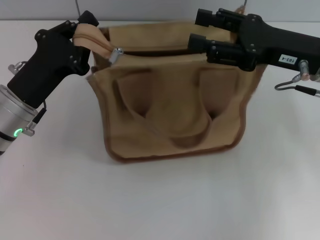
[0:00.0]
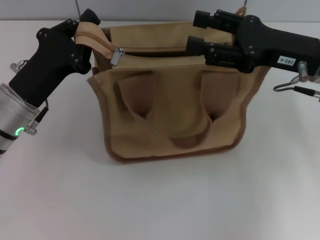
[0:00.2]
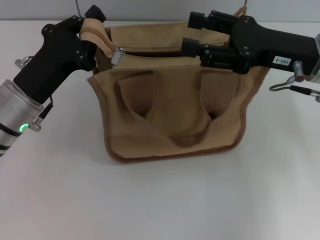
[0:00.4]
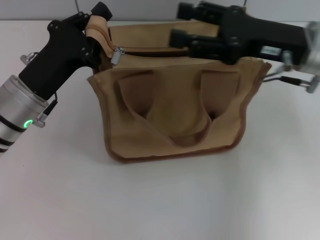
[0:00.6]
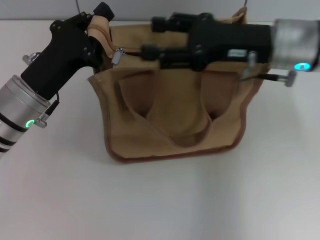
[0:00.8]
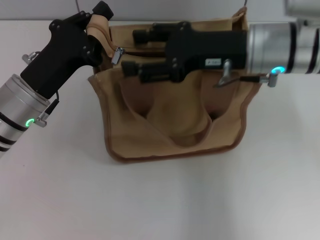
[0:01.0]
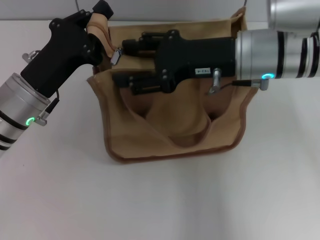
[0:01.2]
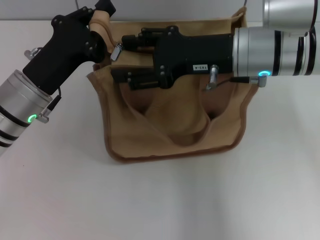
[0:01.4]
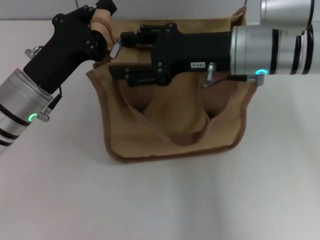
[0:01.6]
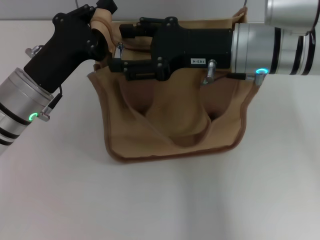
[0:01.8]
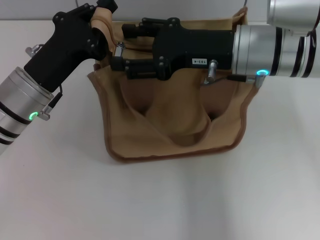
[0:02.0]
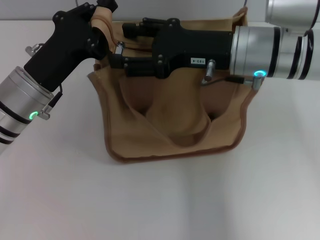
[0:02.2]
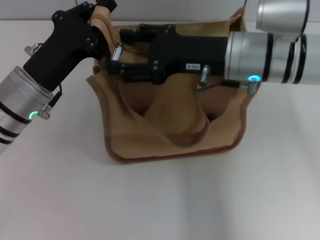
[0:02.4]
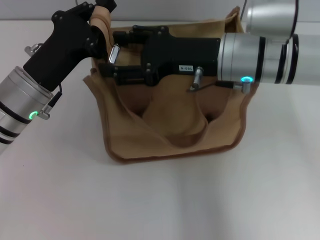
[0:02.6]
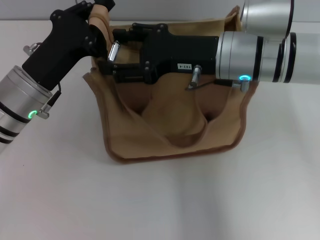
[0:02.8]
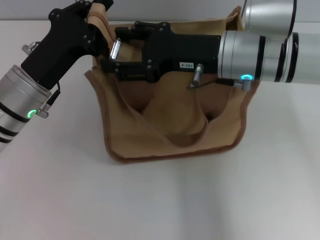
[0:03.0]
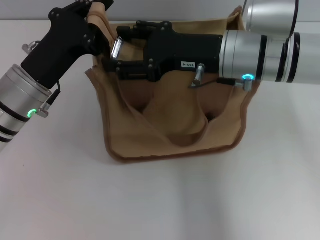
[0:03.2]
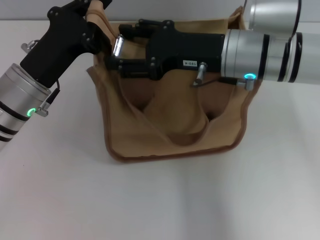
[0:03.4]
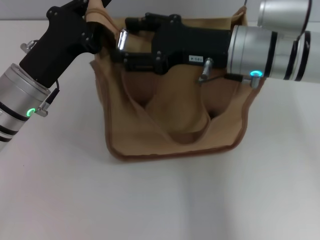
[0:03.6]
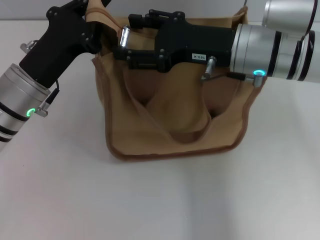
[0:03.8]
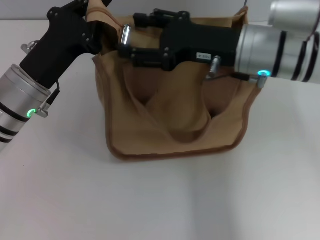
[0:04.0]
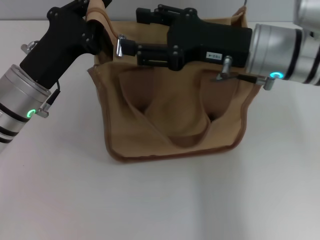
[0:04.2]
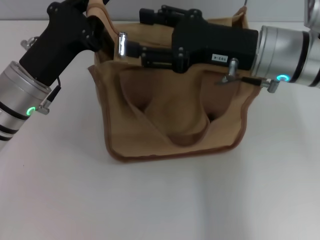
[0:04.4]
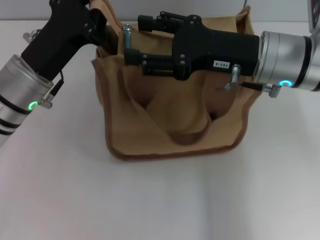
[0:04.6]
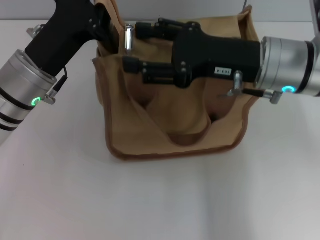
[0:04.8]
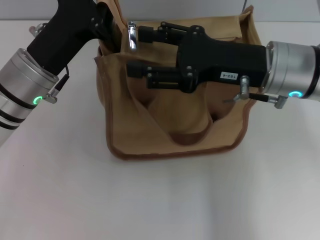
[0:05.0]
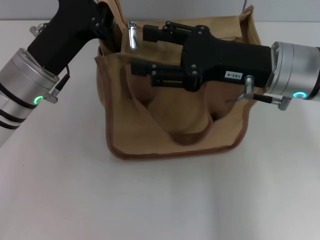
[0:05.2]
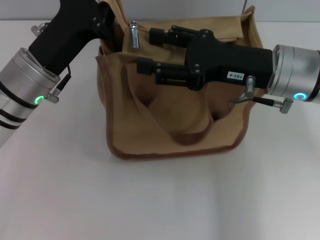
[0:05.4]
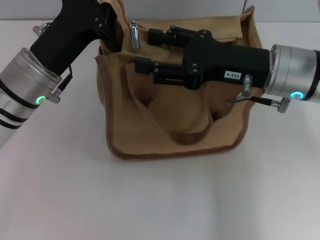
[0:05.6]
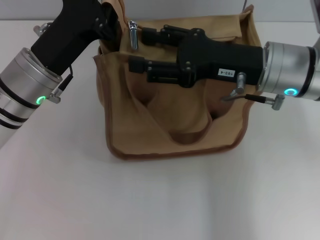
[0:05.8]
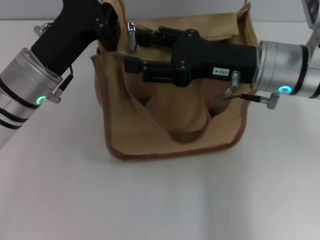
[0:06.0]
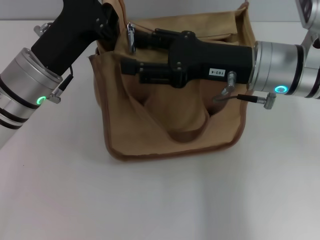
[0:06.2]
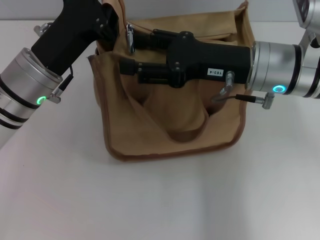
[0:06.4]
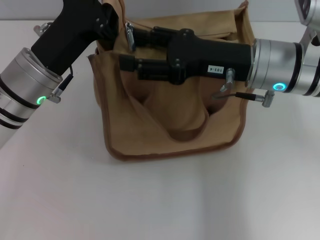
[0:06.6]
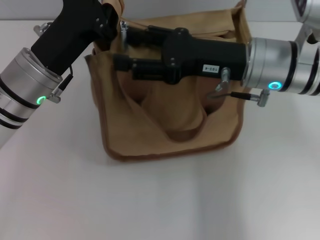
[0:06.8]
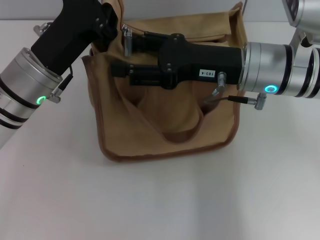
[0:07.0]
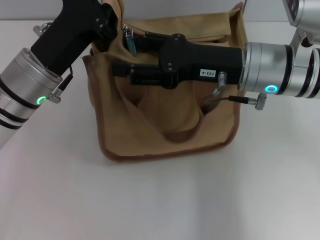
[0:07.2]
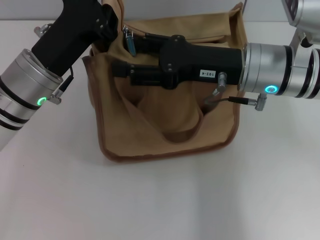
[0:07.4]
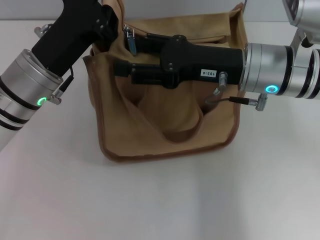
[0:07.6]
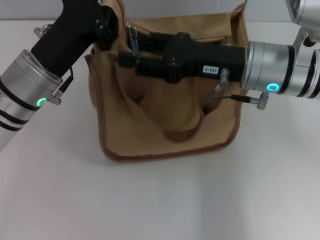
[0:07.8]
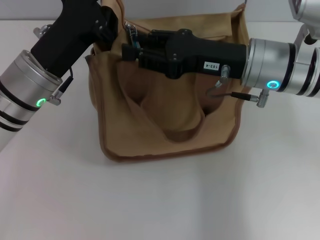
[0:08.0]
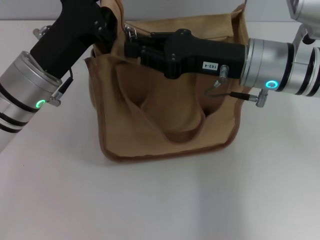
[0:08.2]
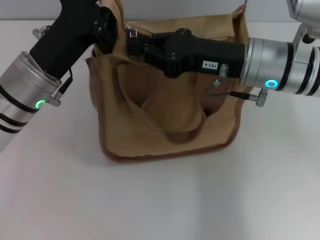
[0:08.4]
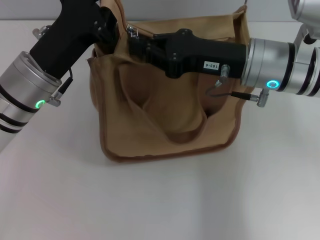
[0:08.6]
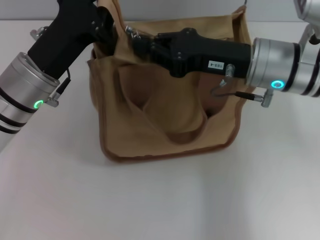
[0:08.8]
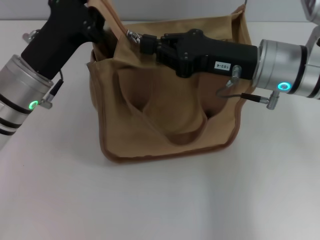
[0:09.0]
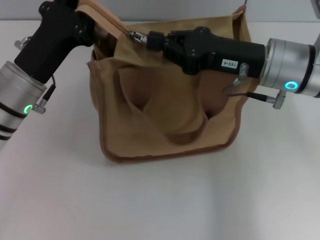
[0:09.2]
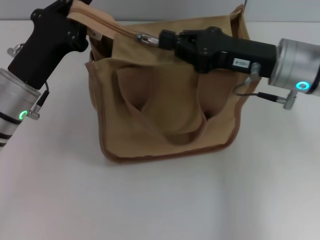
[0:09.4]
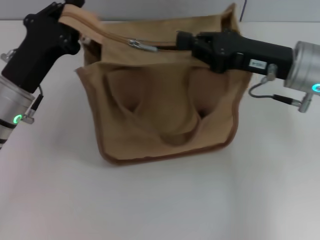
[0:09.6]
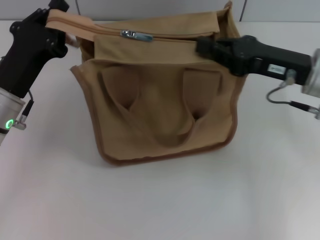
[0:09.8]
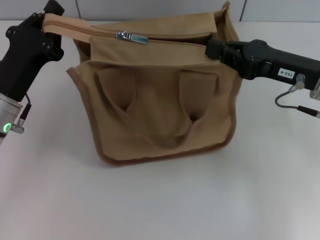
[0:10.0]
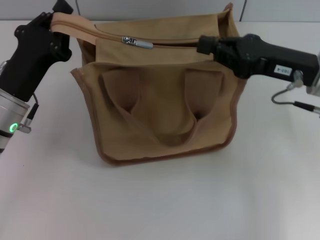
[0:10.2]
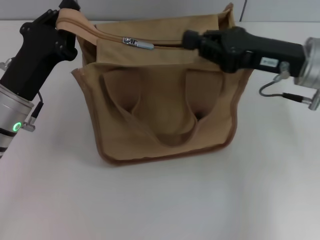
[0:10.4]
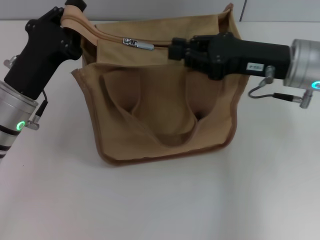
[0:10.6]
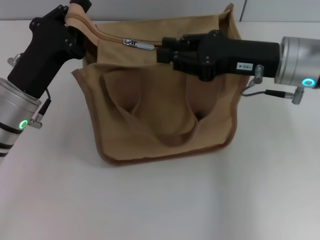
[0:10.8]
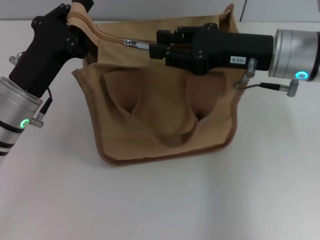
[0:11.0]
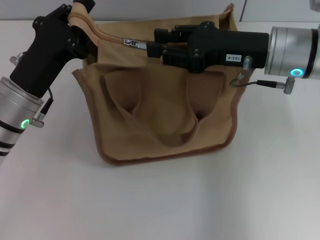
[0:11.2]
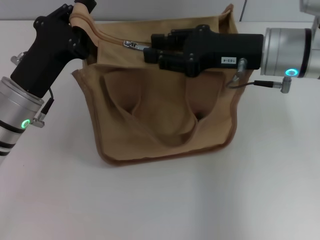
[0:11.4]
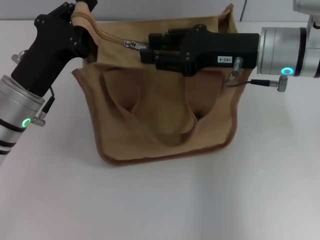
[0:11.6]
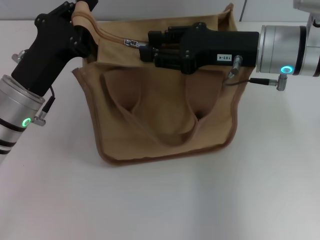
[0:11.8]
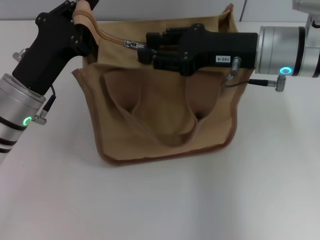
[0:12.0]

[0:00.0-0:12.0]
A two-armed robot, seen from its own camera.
0:00.0 to 0:01.6: The right gripper heads to the left, covering some 10 cm.
0:01.6 to 0:07.6: The grippers make only small movements.
0:07.6 to 0:09.0: The right gripper closes its fingers.
0:10.4 to 0:12.0: The right gripper ends up approximately 5 cm from where it was, and opens up.

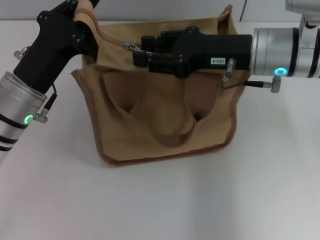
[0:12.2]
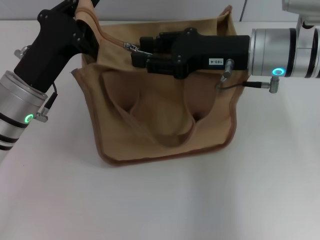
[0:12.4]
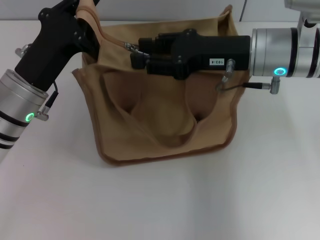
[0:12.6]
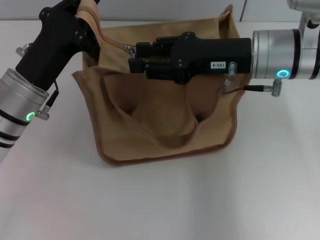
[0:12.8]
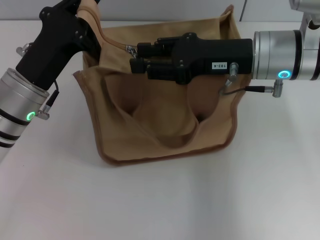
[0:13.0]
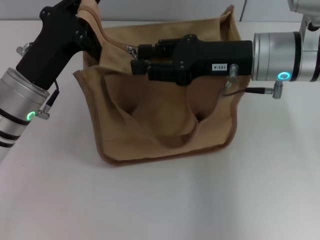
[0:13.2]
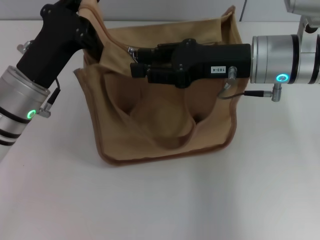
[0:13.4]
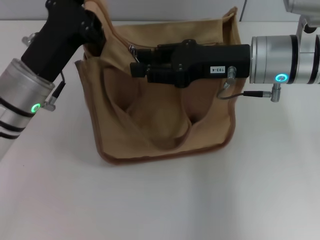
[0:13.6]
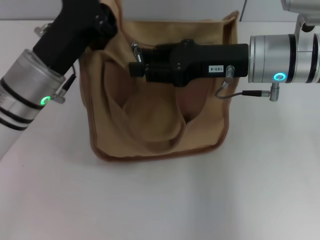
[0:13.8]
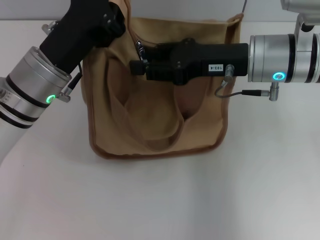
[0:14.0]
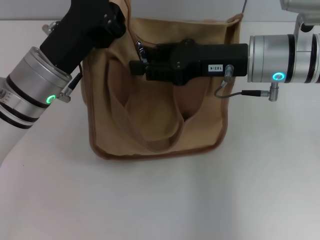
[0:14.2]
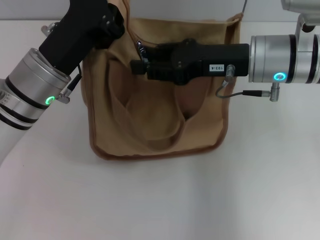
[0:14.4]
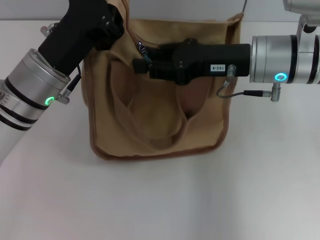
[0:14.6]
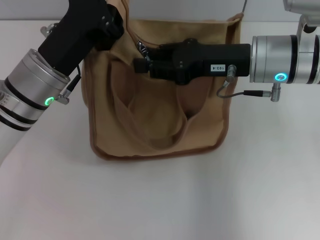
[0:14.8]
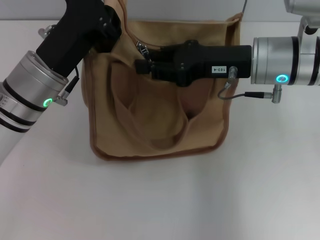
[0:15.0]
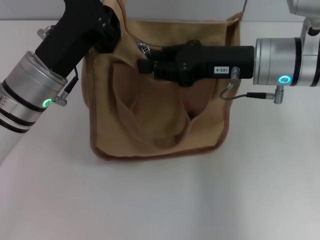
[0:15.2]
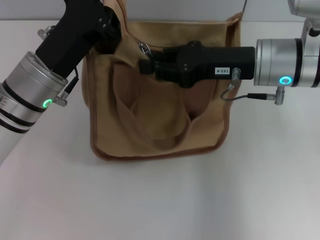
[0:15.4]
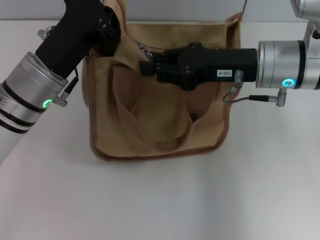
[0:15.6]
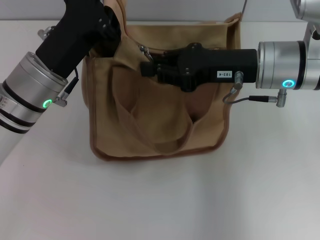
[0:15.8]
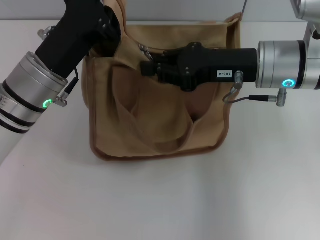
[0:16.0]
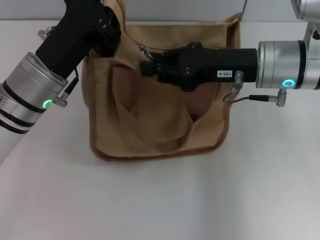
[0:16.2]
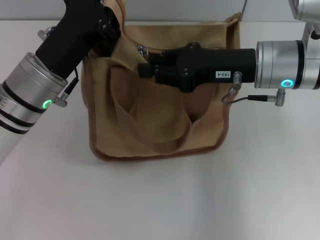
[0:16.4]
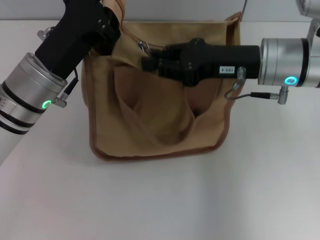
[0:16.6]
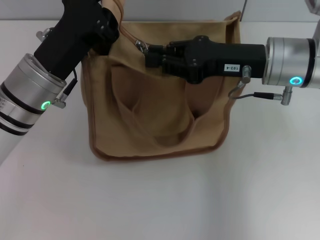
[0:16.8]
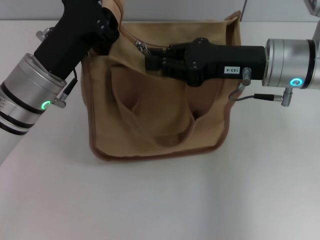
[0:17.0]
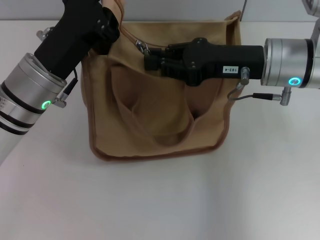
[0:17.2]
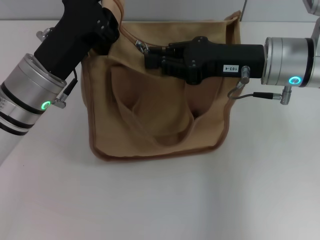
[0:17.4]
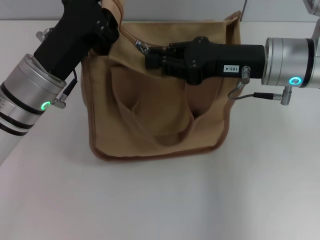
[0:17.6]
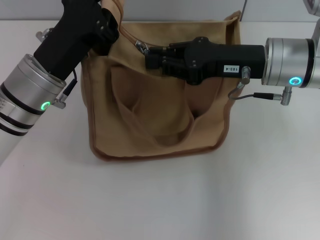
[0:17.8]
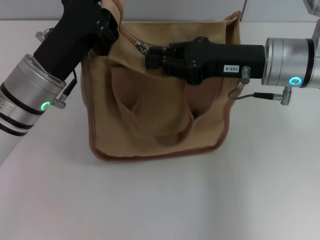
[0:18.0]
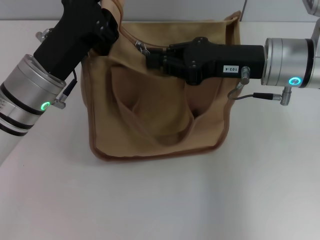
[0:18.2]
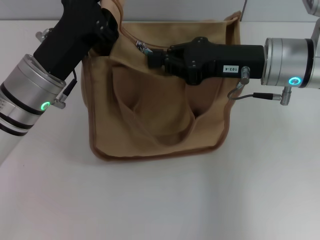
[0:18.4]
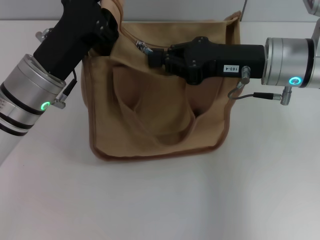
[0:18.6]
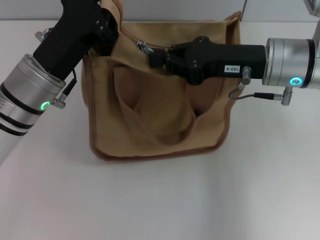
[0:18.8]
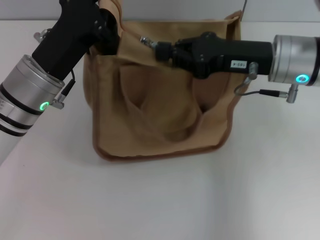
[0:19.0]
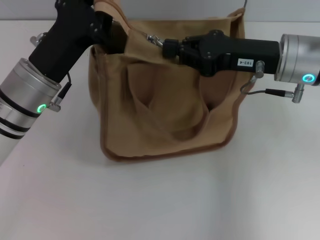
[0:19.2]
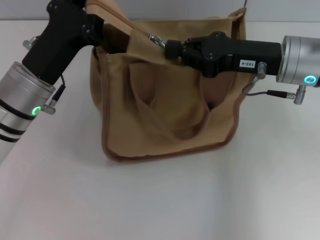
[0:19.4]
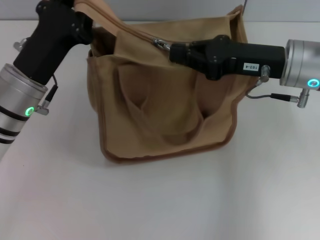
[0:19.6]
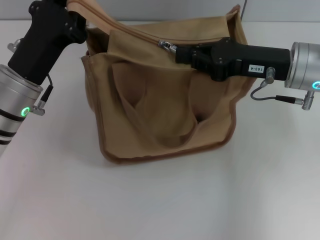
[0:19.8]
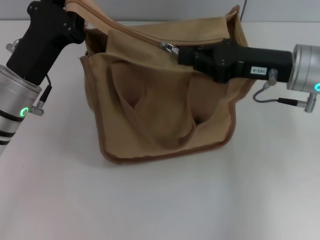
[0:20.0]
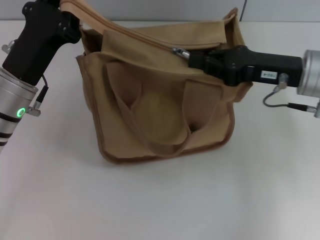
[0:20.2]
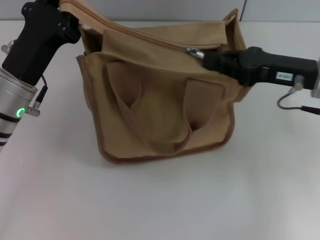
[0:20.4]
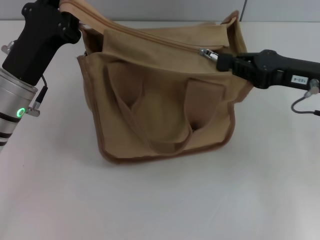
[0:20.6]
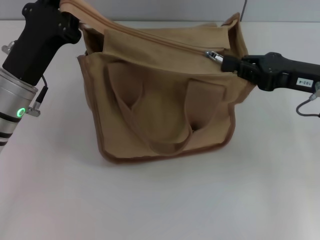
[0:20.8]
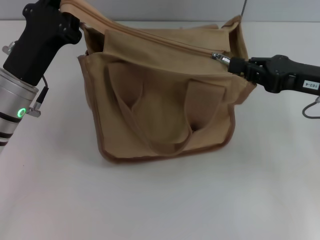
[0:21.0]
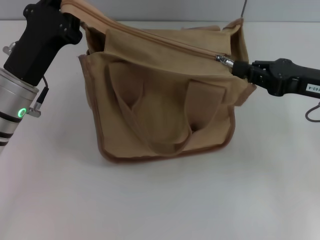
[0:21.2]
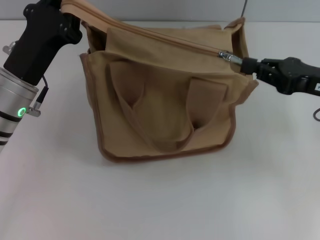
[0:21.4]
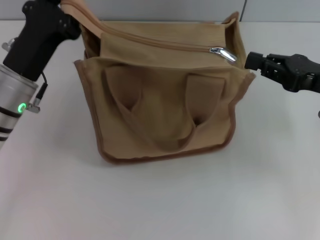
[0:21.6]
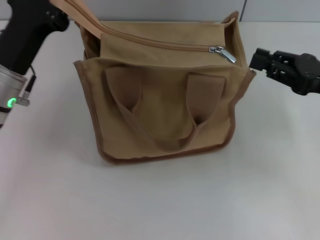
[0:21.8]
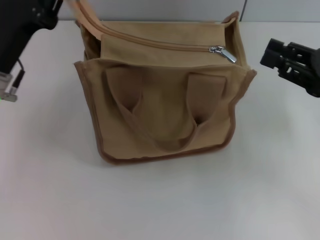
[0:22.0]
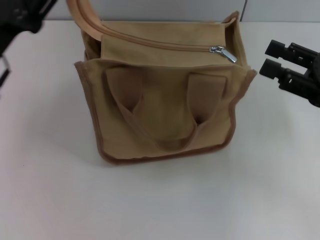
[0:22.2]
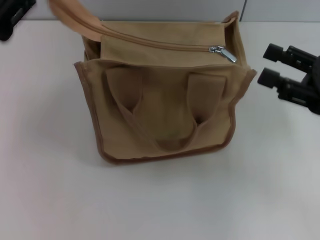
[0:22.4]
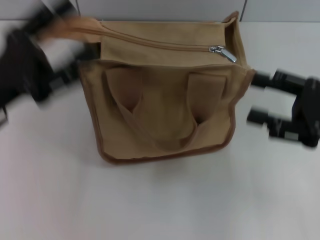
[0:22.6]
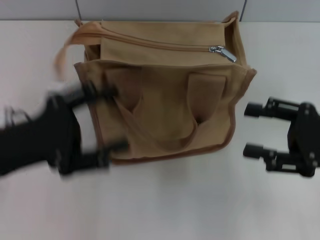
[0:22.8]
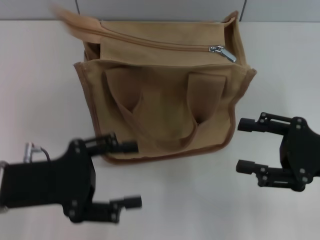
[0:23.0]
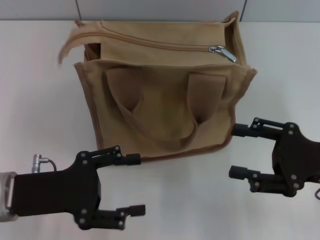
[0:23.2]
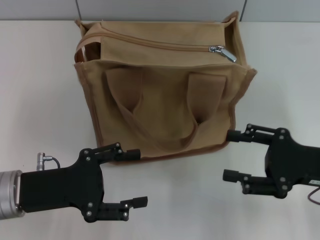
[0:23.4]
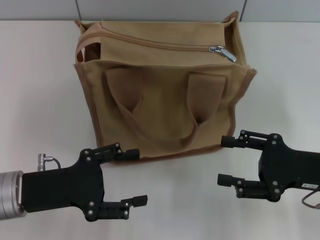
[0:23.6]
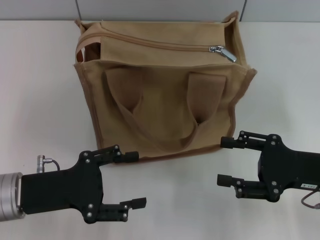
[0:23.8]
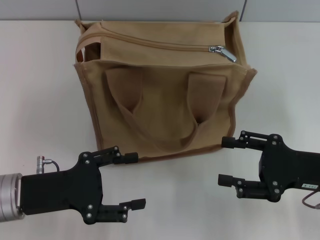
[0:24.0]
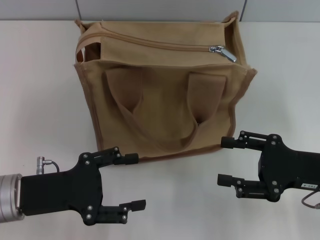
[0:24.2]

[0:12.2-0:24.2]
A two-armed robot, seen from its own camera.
Step, 0:12.2 to 0:21.8: Pull up the zipper with your right hand.
Step, 0:22.0 to 0:22.6: Grab the zipper with your left hand.
0:12.2 to 0:13.8: There are only small adjustments of the grippers.
0:13.8 to 0:15.2: Both grippers stay put.
0:15.2 to 0:18.2: The two grippers keep their place.
0:19.8 to 0:21.2: The right gripper travels to the right by roughly 5 cm.
0:21.2 to 0:22.6: The right gripper shifts some 5 cm backward, and opens up, while the left gripper moves approximately 10 cm, and opens its fingers.
0:22.6 to 0:24.2: The two grippers go roughly 5 cm downward.
